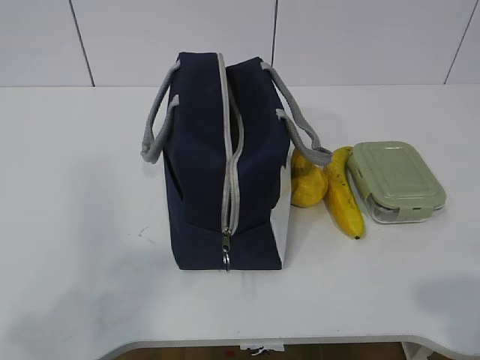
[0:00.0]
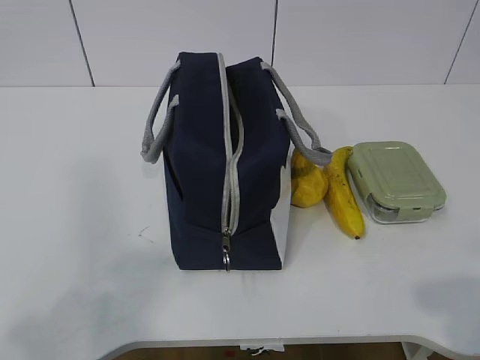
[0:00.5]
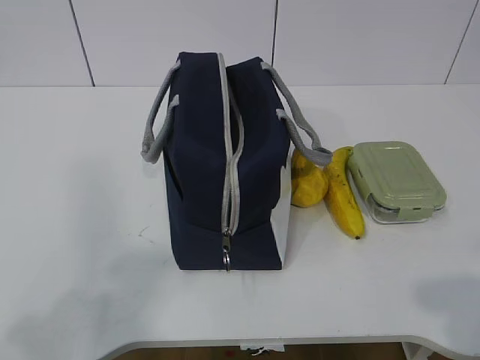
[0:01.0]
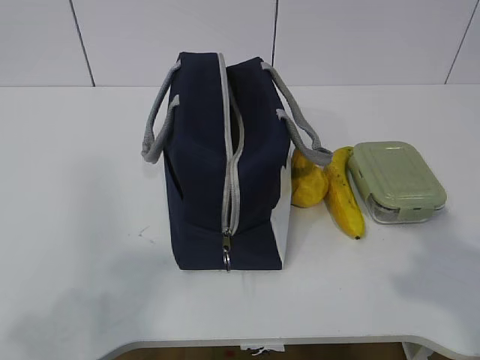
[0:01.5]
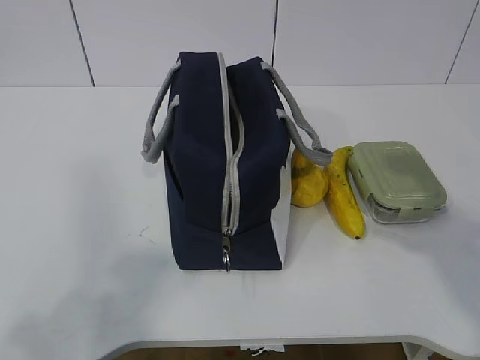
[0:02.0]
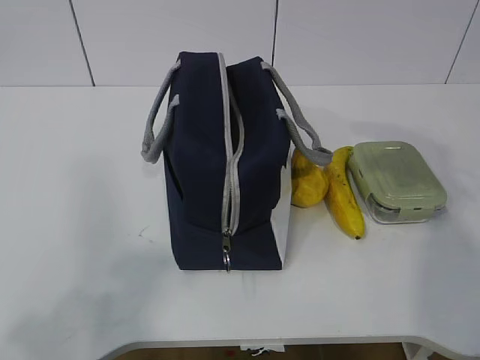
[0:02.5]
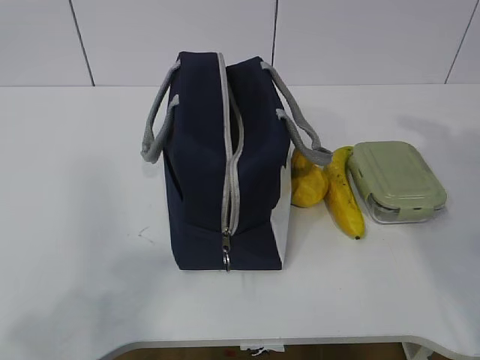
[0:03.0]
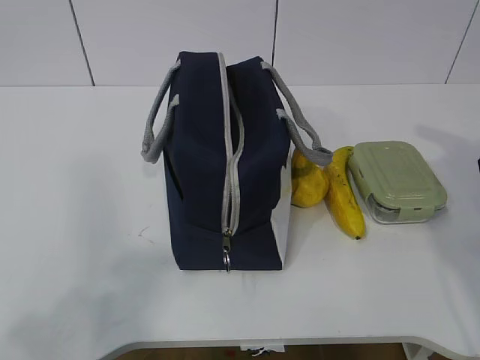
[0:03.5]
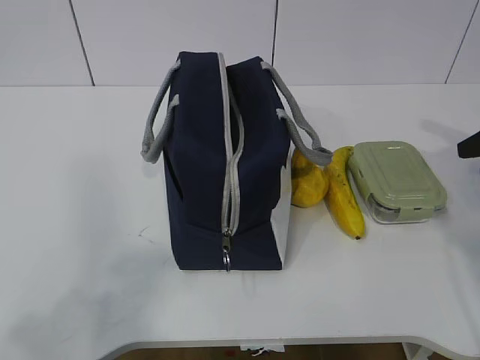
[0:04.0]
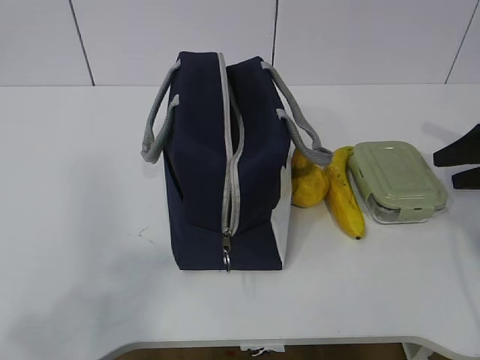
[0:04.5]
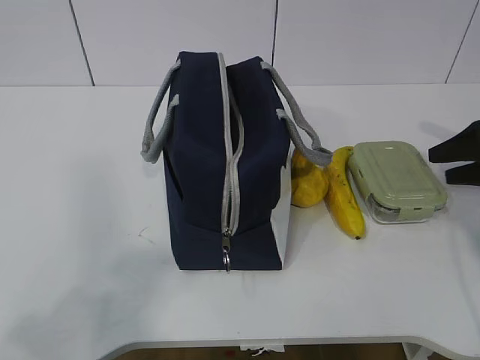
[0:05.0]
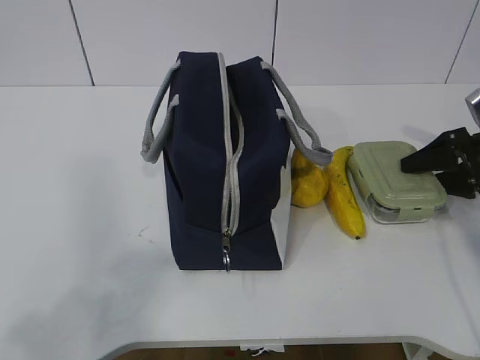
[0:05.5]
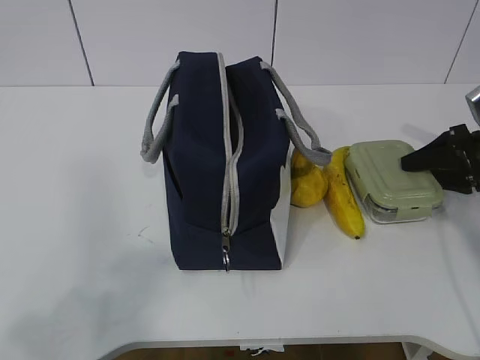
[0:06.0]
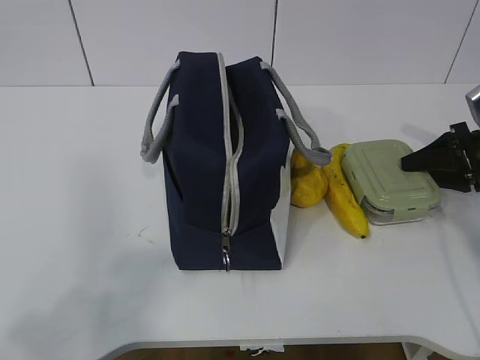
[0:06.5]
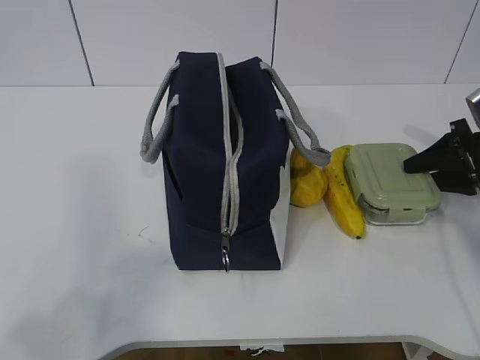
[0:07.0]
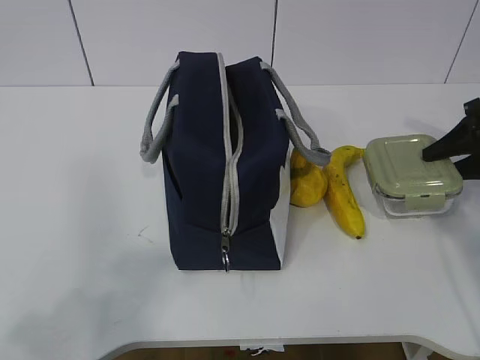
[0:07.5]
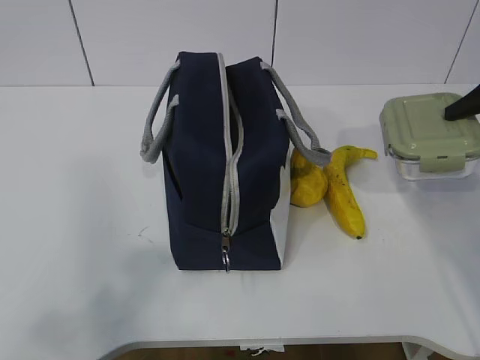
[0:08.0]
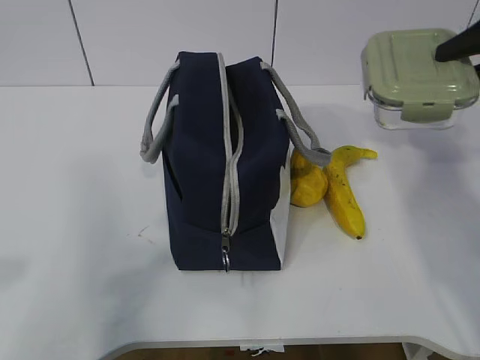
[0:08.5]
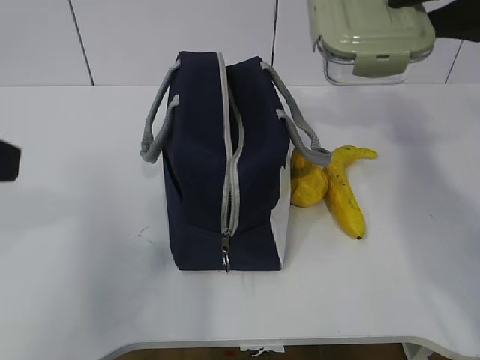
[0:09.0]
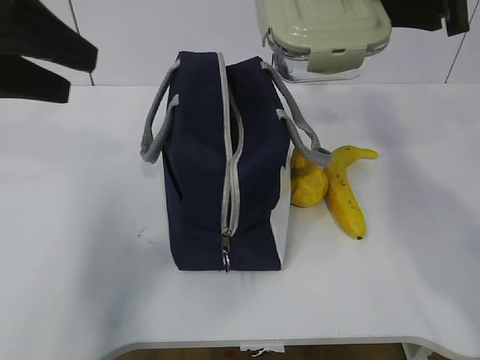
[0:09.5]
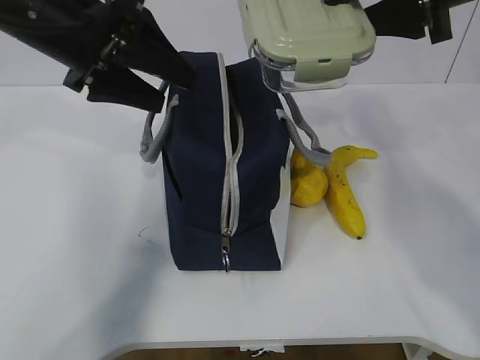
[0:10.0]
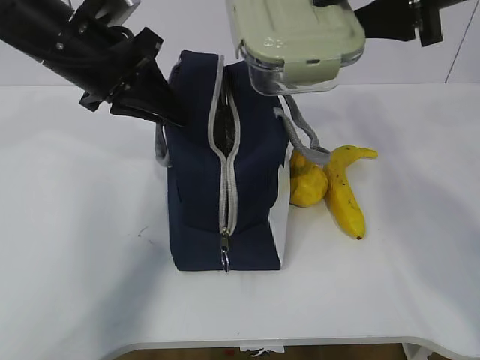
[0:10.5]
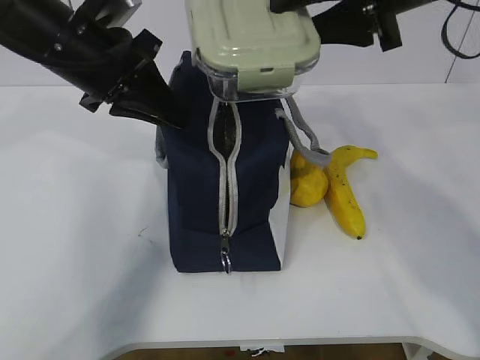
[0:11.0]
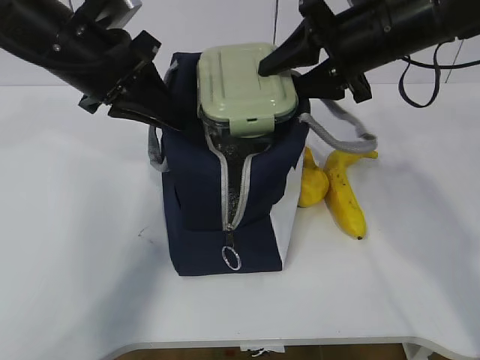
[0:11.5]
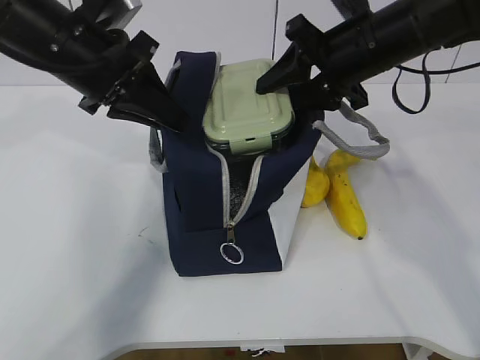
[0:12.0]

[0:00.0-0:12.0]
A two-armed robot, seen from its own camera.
Step, 0:00.0 to 0:05.5: Grab the lunch box with your right hand.
Step, 0:06.0 to 0:09.0: Grab the lunch bag with your left hand.
Step, 0:09.5 to 0:11.5: Place it into the bag with your right hand.
0:02.0 to 0:04.0: The right gripper moves forward, to the right and downward, some 30 cm, and opens its fingers.
0:04.0 to 0:06.0: The right gripper travels downward by approximately 5 cm.
0:06.0 to 0:08.0: The right gripper shifts some 15 cm upward.
0:08.0 to 0:10.0: The right gripper moves to the left and upward, some 20 cm. The left gripper is displaced forward by about 35 cm, and opens its fingers.
0:10.0 to 0:12.0: The left gripper closes up. The right gripper is displaced downward and to the left by about 10 cm.

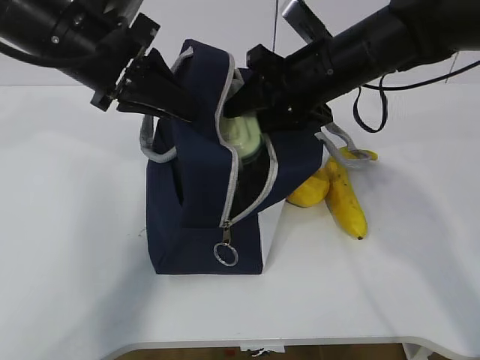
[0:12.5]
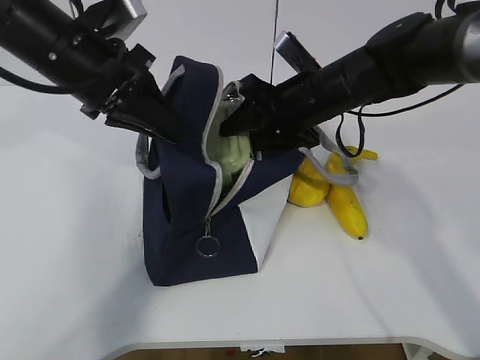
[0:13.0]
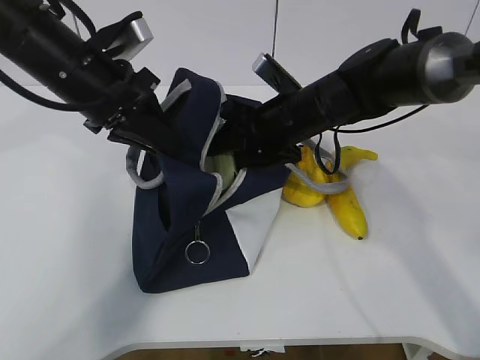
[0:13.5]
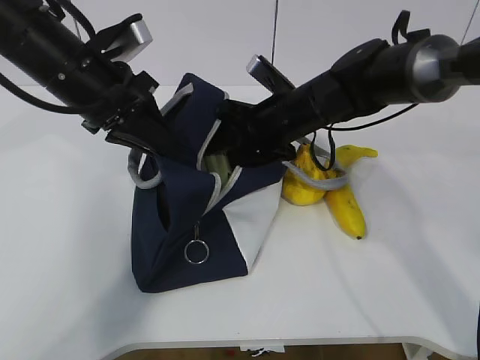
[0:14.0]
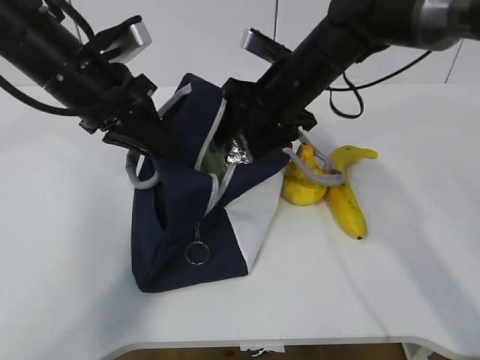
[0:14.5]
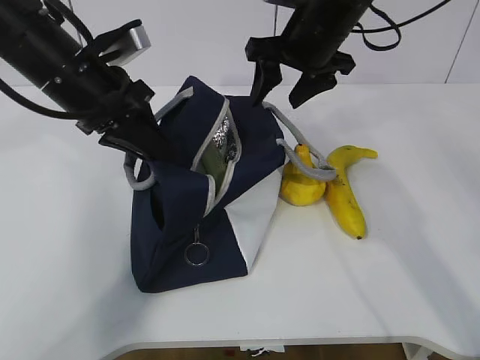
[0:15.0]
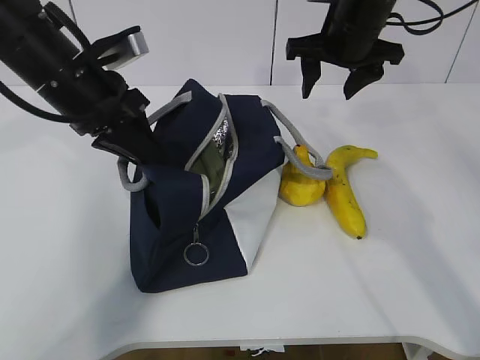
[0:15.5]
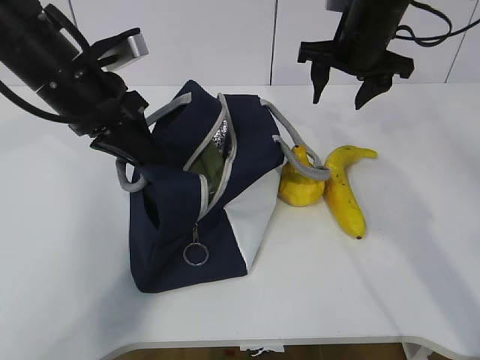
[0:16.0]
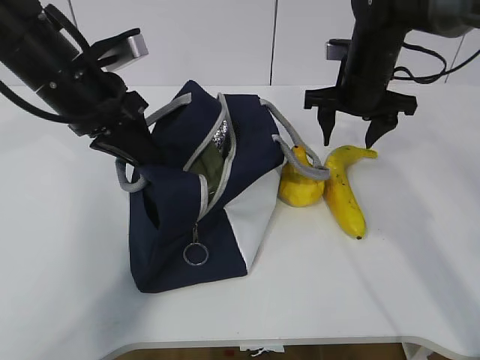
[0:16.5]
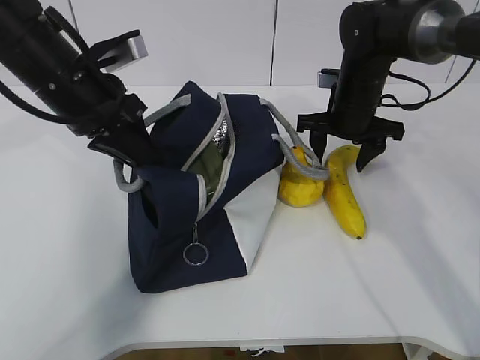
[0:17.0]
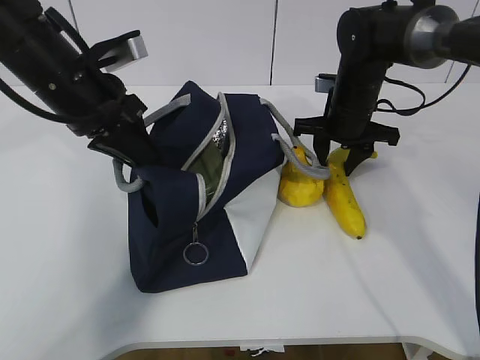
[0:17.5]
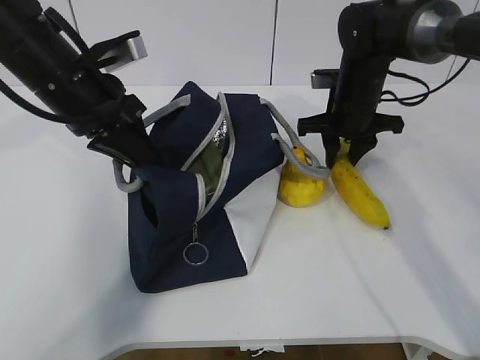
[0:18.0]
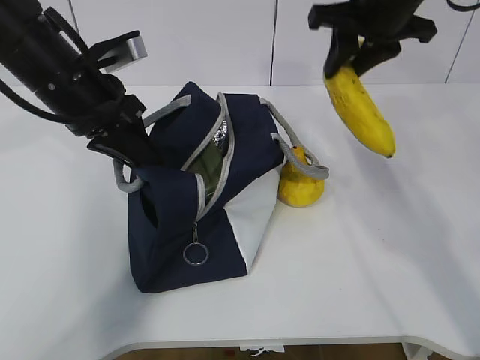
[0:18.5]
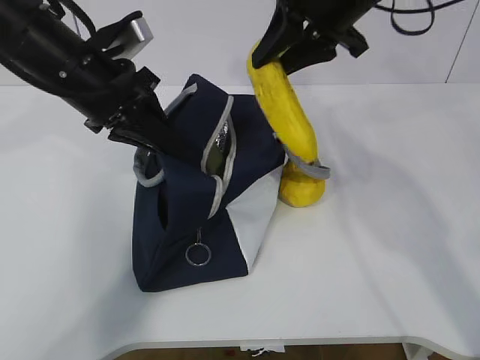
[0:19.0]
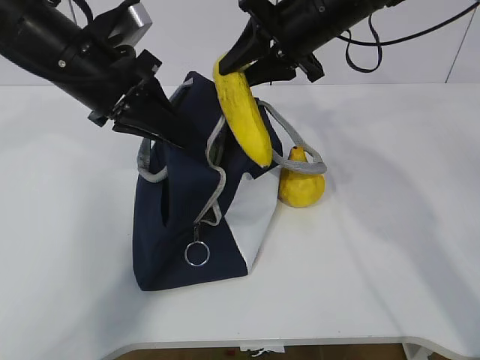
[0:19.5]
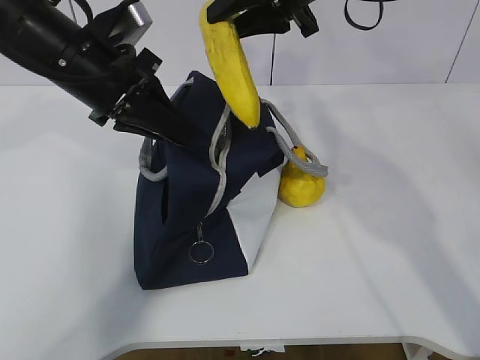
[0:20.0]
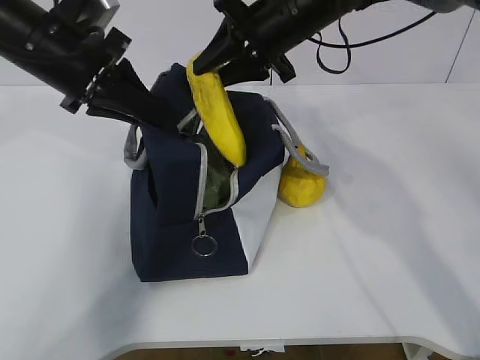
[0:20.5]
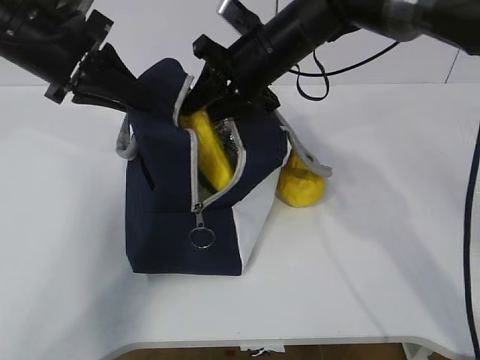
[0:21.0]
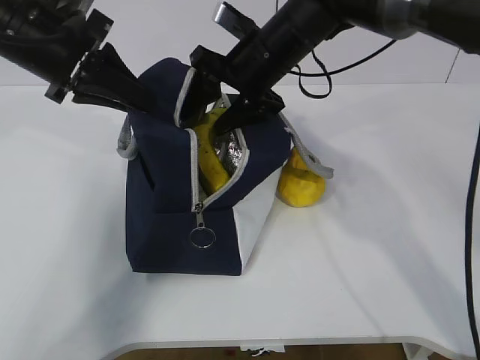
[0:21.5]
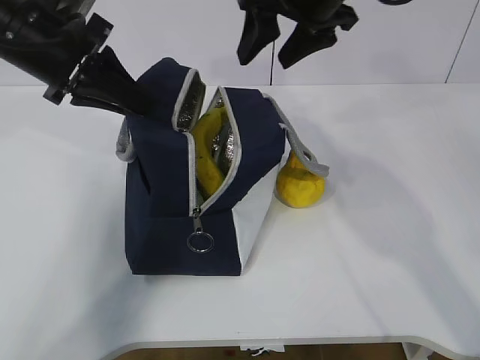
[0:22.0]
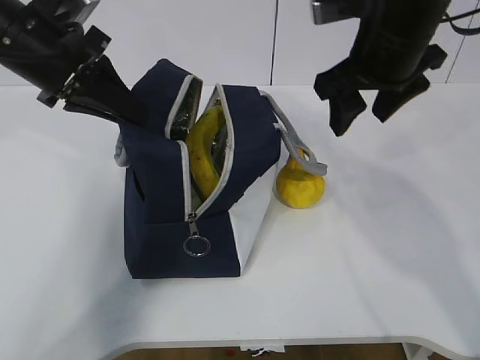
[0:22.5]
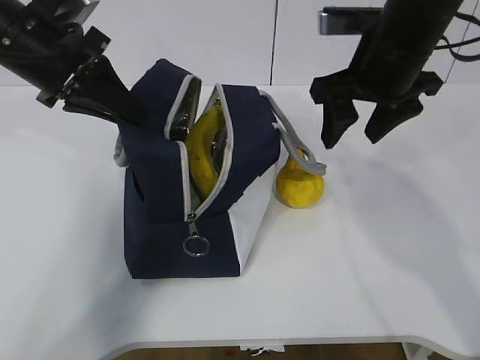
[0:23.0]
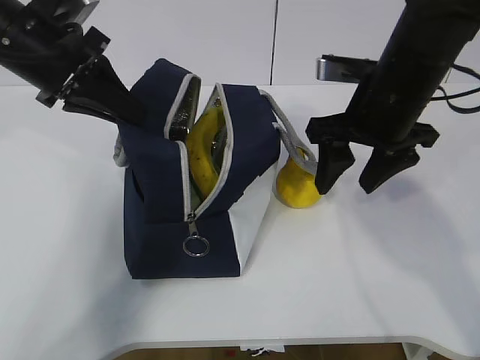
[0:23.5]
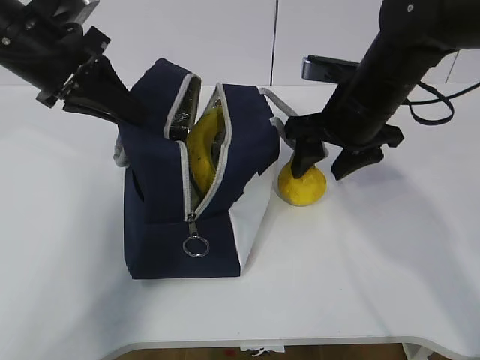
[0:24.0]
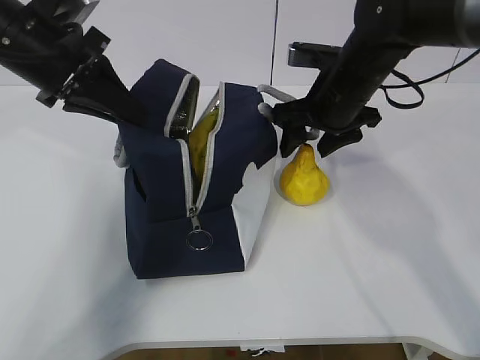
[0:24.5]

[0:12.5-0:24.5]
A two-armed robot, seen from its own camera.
Step, 0:12.5 to 0:14.5: Grab the banana with your right hand.
Step, 0:15.0 to 0:17.5: Place it into the bag with your right hand.
Step, 0:18.0 to 0:21.5: Grab the pear with your right hand.
Step, 0:22.0 to 0:23.5: Place it into the bag with your right hand.
0:14.5 to 0:16.5: The right gripper goes some 10 cm to the right.
0:16.5 to 0:18.5: The right gripper heads upward, covering approximately 10 cm, and closes up.
0:18.5 to 0:20.5: The right gripper shifts about 10 cm to the left and downward.
0:20.5 to 0:22.5: The right gripper moves backward and to the right, some 10 cm, and opens up.
0:22.5 to 0:24.5: The right gripper is displaced downward by some 10 cm.

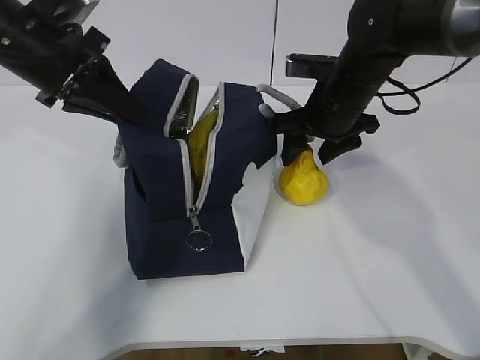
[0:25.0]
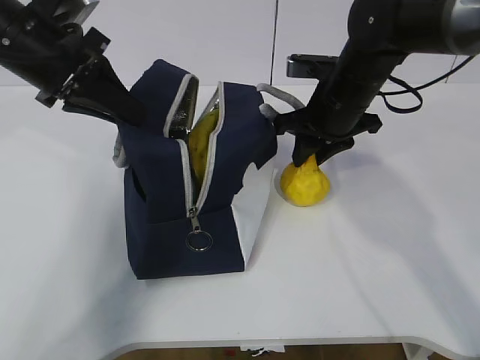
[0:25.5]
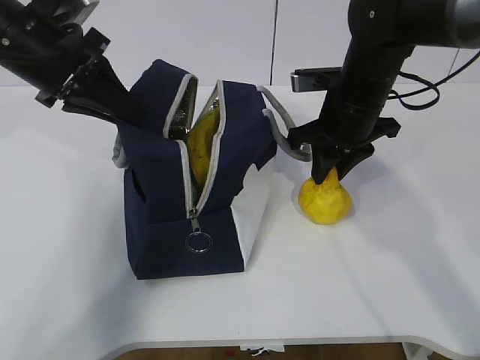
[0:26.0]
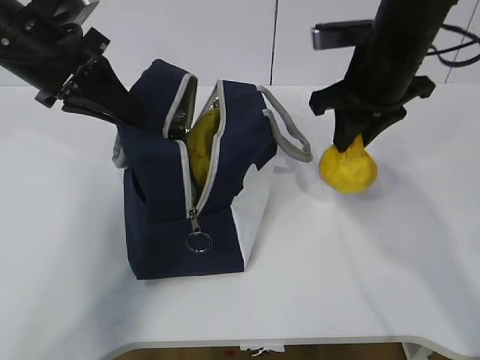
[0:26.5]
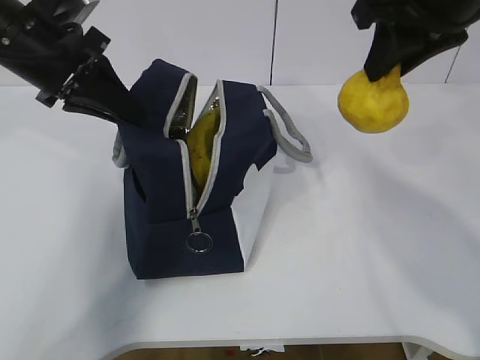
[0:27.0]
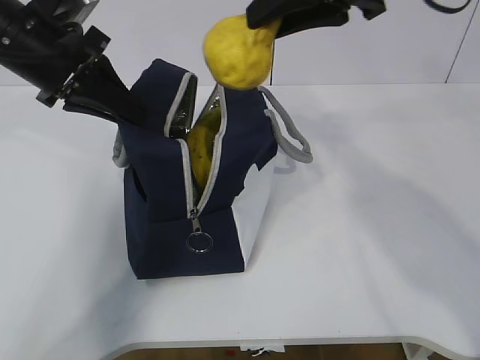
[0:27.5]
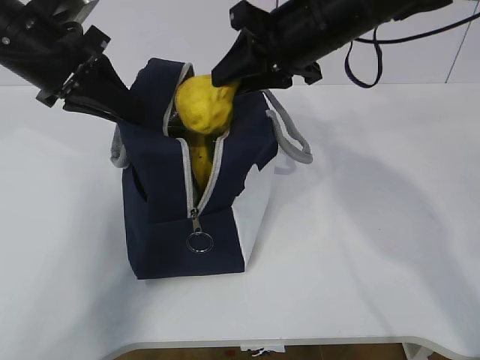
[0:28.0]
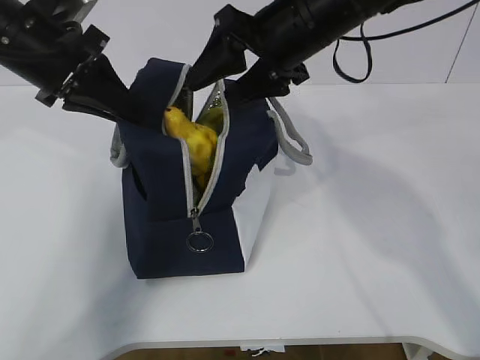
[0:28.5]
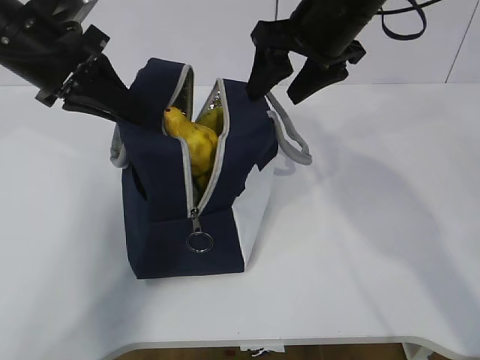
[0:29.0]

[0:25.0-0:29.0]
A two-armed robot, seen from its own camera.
Step, 0:25.0 to 0:26.5: Move the lunch bag to the right.
0:25.0 to 0:27.0: The right gripper is displaced upward and backward by about 20 cm, and closes its fingers.
0:27.0 to 0:29.0: The right gripper shifts roughly 10 cm forward, to the left and downward, and opens up.
